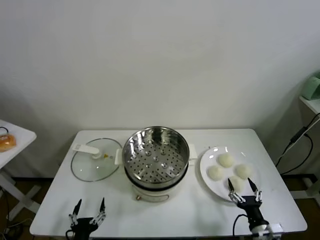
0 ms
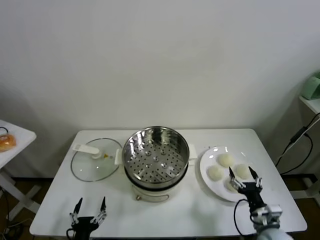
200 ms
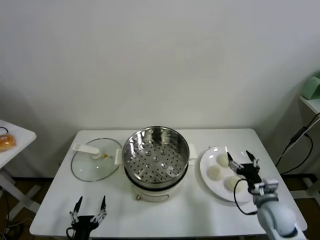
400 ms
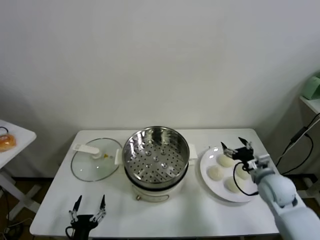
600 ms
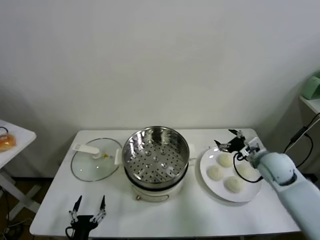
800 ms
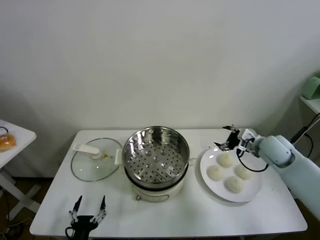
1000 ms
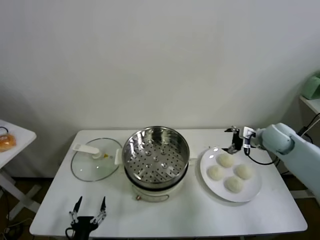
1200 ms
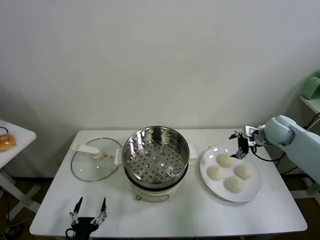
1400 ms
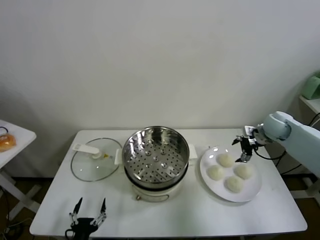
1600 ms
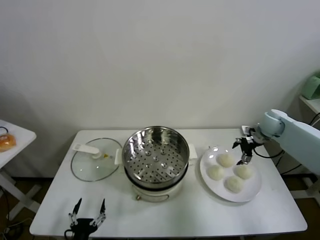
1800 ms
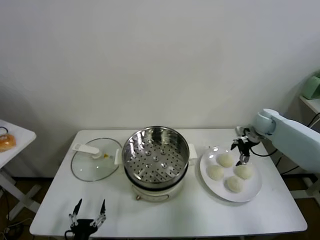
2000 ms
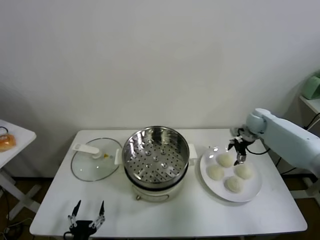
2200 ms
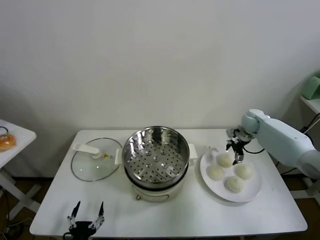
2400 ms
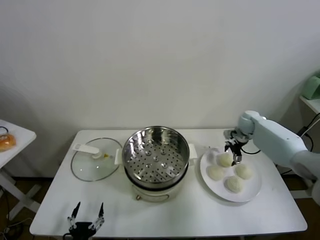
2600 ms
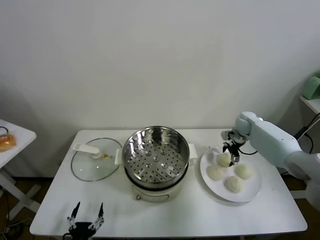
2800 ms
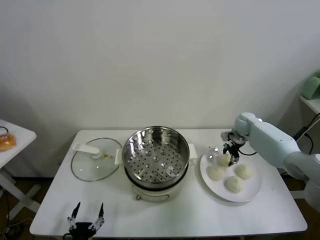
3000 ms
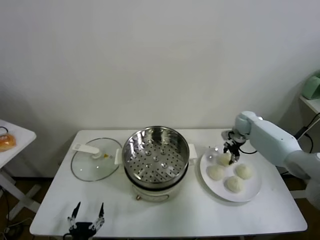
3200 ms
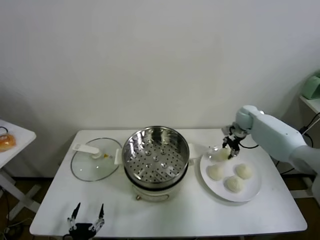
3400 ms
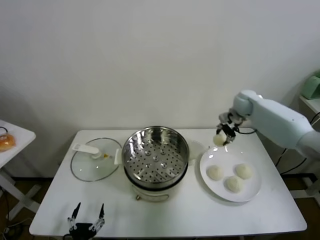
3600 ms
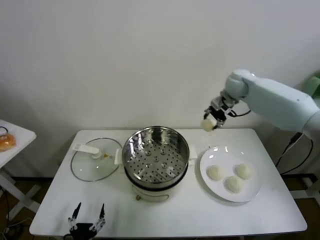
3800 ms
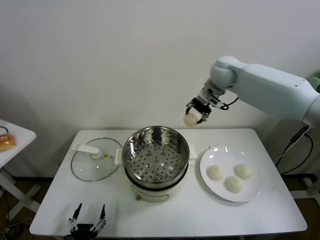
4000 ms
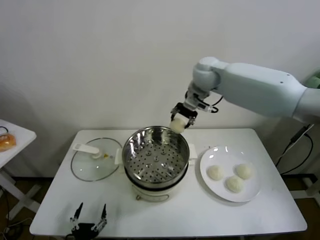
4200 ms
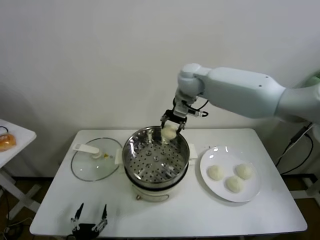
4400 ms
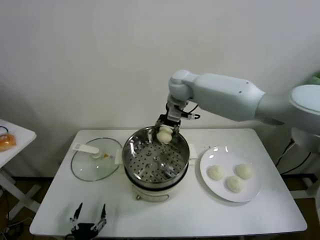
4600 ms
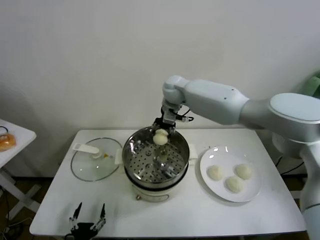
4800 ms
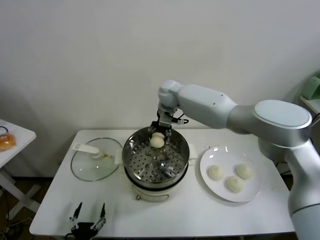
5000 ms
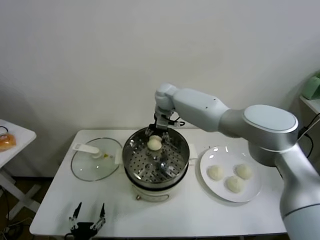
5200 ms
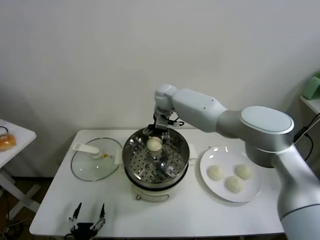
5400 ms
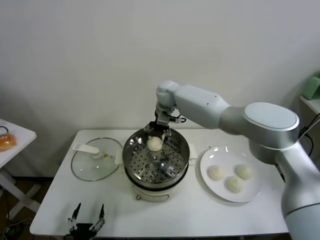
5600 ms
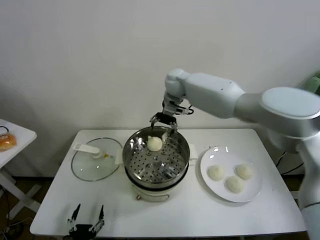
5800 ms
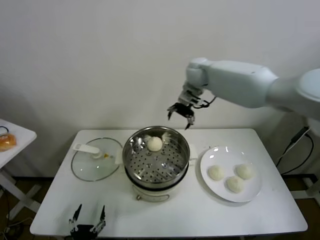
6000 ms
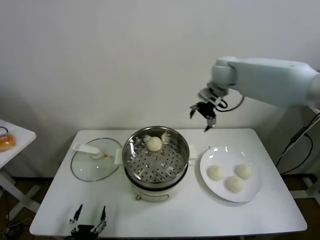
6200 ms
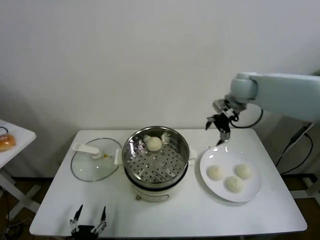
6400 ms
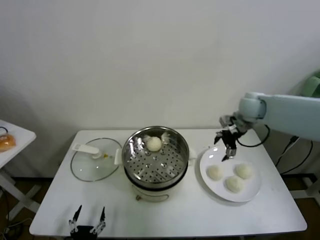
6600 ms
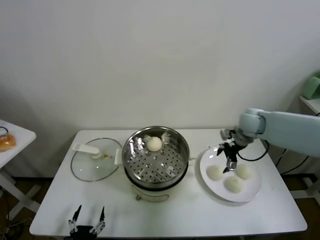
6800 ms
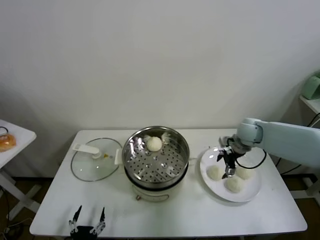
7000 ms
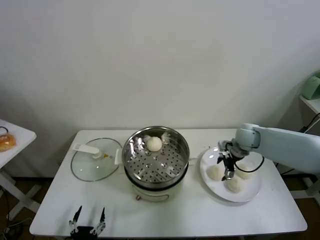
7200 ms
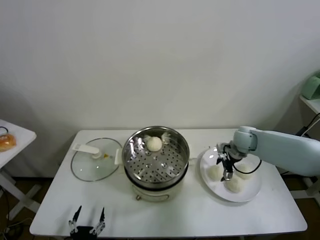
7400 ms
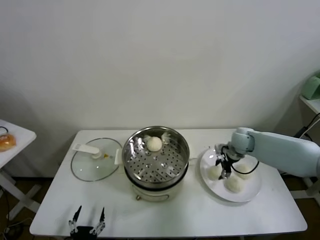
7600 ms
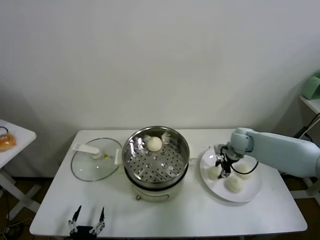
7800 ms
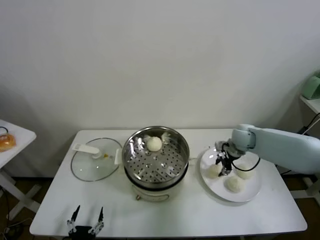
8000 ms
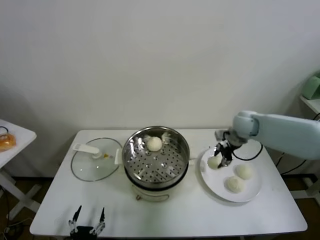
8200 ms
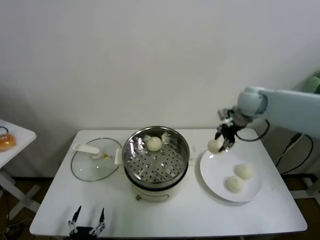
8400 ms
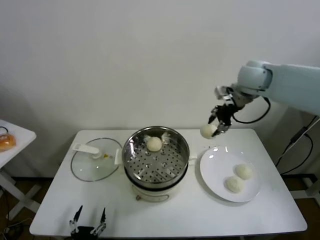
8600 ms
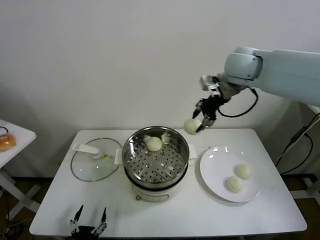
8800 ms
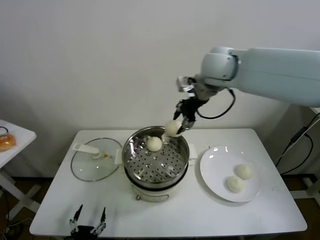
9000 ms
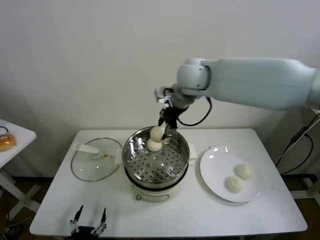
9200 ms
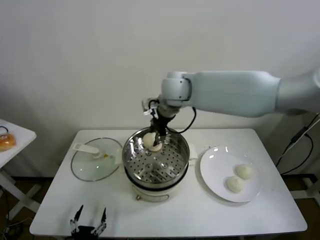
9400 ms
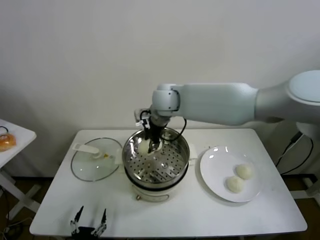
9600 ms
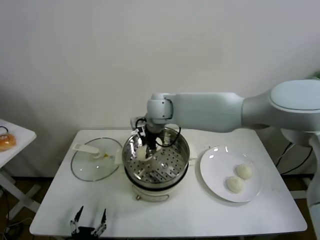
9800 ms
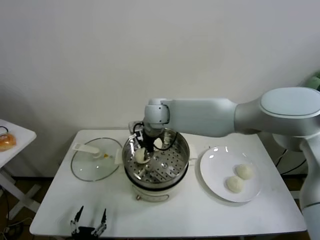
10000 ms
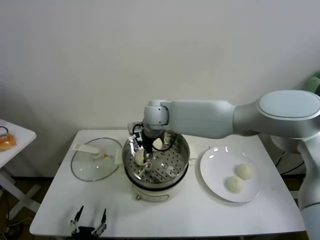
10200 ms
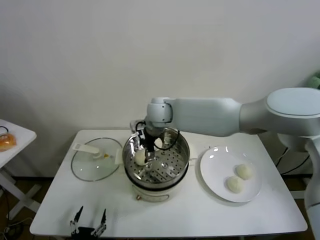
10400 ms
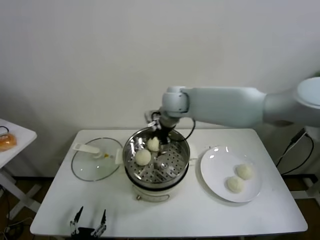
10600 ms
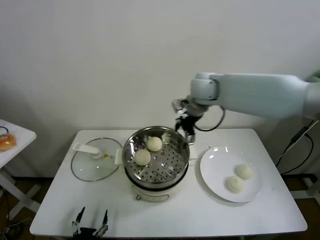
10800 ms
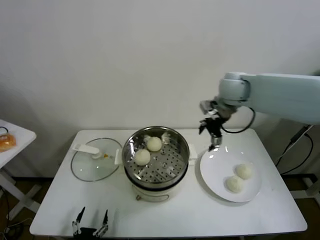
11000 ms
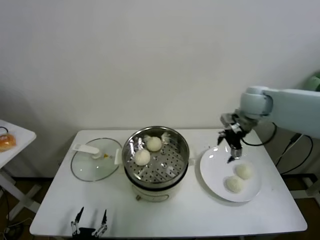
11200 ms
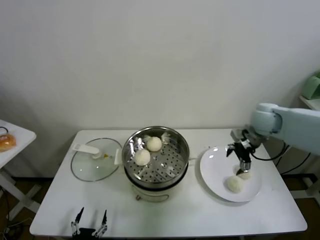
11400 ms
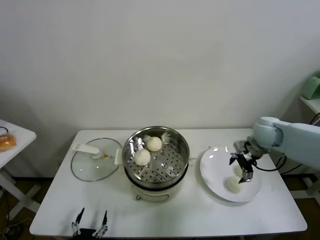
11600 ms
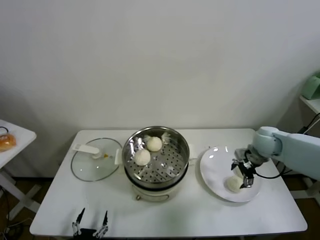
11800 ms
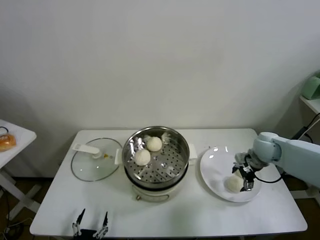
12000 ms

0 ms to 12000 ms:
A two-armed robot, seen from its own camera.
Task of the whole recording: take steamed baozi put them in steamer.
Step, 0 ms to 3000 ms: Grasp the baozi in the plate with right gripper.
Step, 3200 ms to 5400 ms: Place the baozi on the steamer with right gripper.
Step, 5800 ms to 7600 ms: Grasp the baozi in the plate with right gripper.
Step, 8000 ms to 10200 ms: Place the baozi on the steamer with right gripper.
1600 ms to 3000 ms: The right gripper shifts about 15 cm forward, downward and to the left, and closes.
3000 ms to 4400 ms: The right gripper goes roughly 35 cm to the left and upward.
4400 ms to 6000 ms: The right gripper moves roughly 10 cm to the left and comes back, and opens.
6000 ms to 7600 ms: The right gripper heads downward, to the right and backward, covering about 30 cm, and closes up.
7600 ms to 9000 ms: The right gripper shifts some 35 cm upward and to the left, and closes.
9000 ms to 10400 ms: The right gripper is displaced downward and to the left by about 25 cm, and opens.
10400 ms to 12000 ms: The right gripper shifts roughly 35 cm to the right.

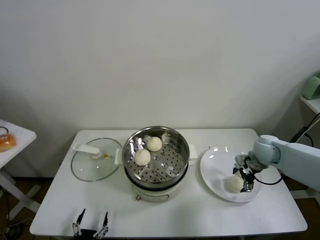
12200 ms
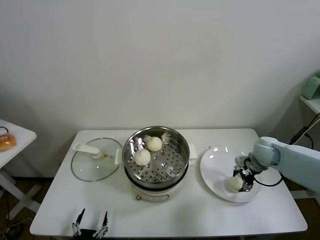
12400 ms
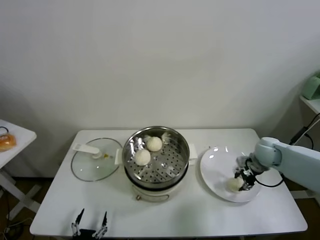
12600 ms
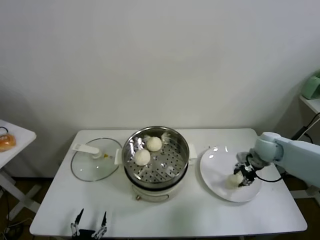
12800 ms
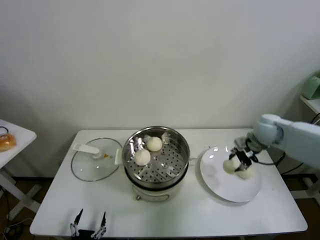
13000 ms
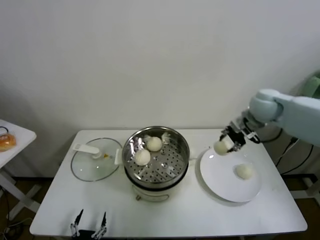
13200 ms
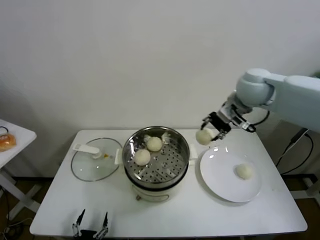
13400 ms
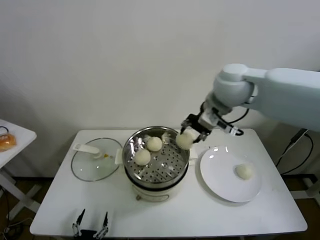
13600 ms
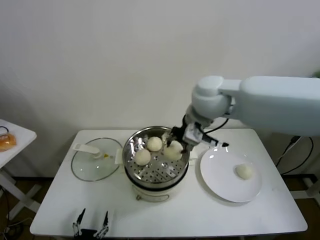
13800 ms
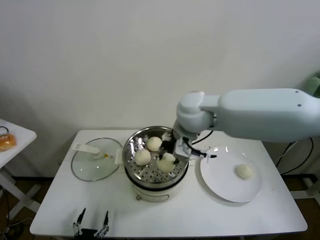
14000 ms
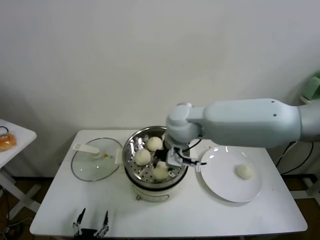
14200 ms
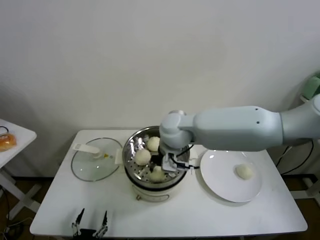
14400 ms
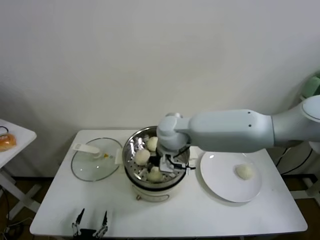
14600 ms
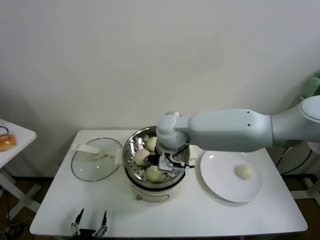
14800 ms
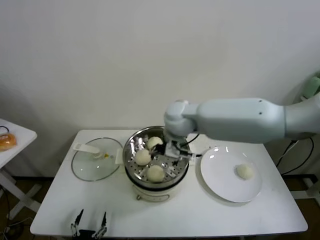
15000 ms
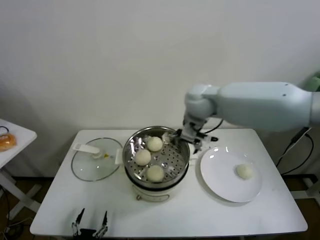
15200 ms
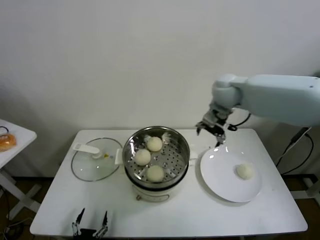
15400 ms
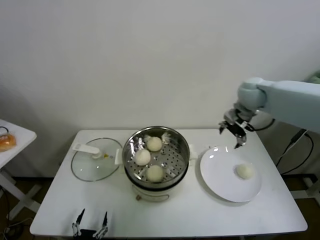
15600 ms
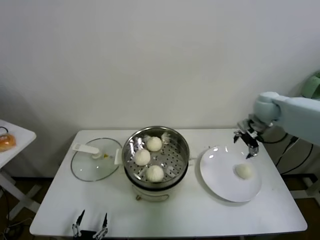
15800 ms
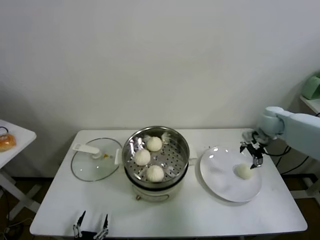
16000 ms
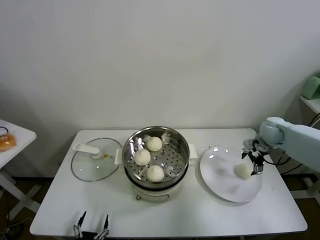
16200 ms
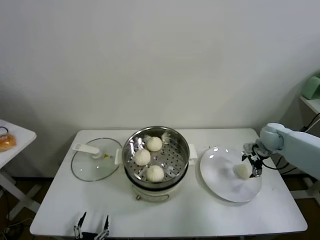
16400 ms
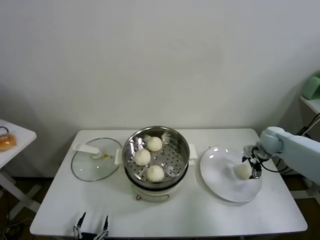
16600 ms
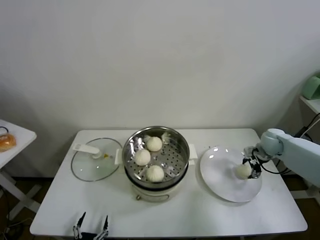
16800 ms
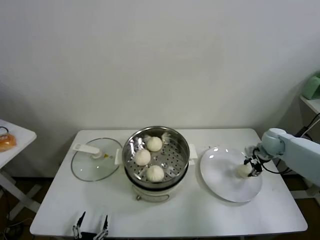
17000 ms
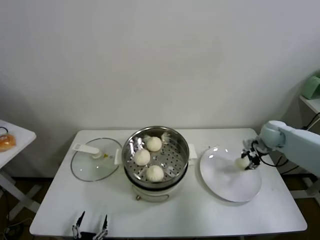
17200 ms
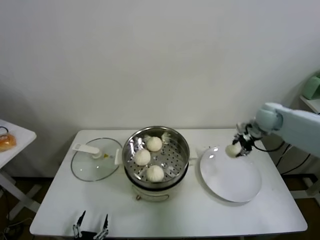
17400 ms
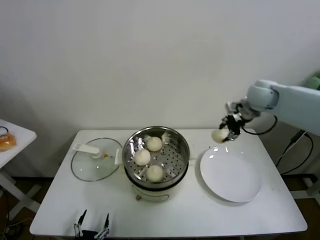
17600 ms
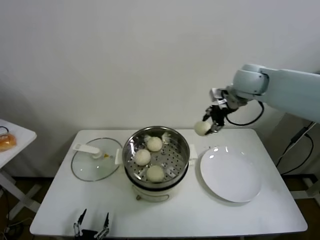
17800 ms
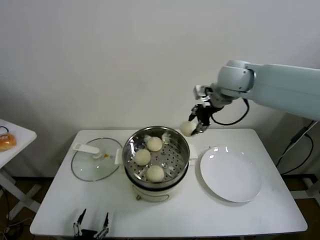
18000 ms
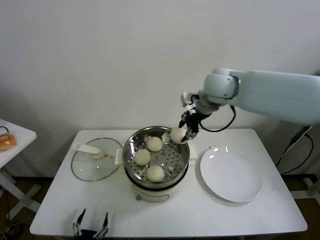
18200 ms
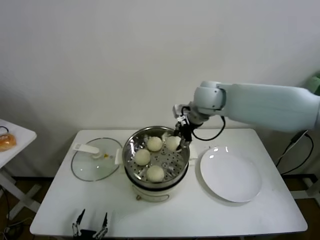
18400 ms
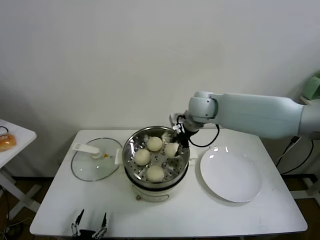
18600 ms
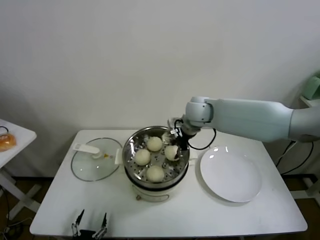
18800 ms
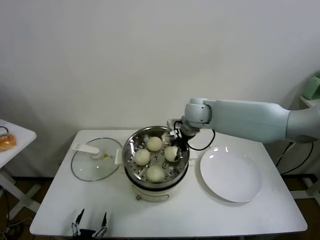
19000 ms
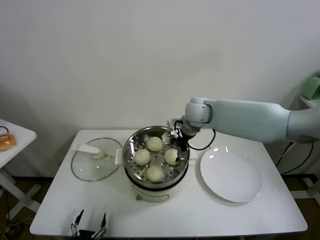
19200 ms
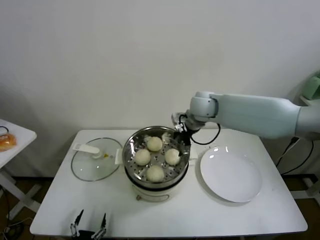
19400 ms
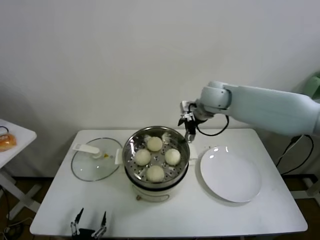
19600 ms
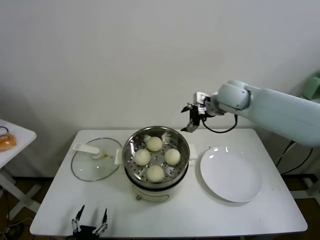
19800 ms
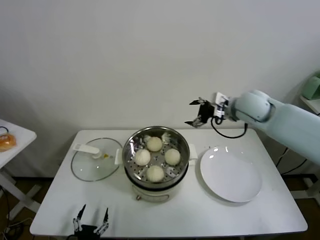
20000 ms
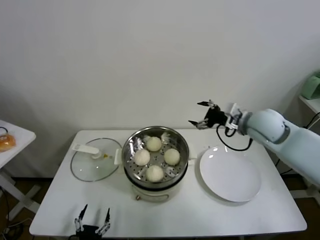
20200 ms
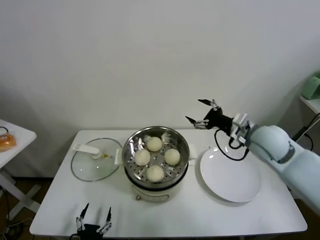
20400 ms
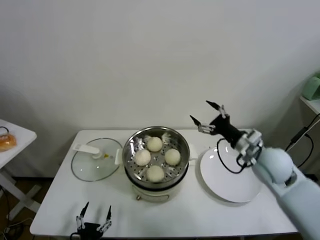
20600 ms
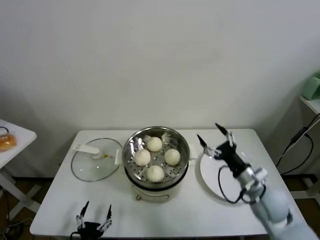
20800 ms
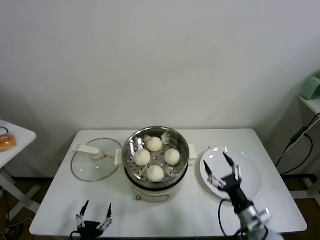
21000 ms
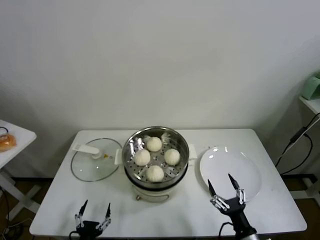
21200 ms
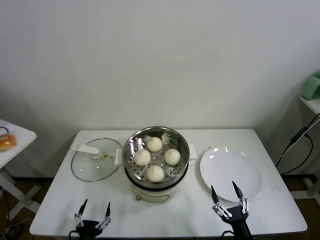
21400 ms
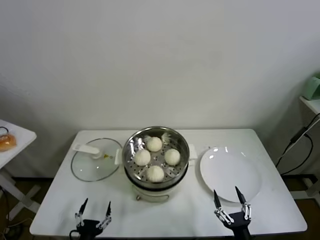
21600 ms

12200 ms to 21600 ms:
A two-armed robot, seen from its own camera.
Task of the whole recording: take steamed baozi put them in steamer.
Step, 12800 ms to 14800 ms: Place the baozi on the steamer with right gripper.
Step, 15000 ms to 16800 ms: Grasp the baozi in the plate with right gripper.
Step, 17000 ms to 19200 ms: Place the baozi on the steamer with right gripper.
12200 ms to 13800 ms: The right gripper shifts some 35 cm upward and to the left, and closes its fingers.
13800 ms to 15400 ms: The right gripper shifts about 10 cm forward, to the right and downward, and opens its fingers.
15400 ms to 17000 ms: The right gripper heads to the right and downward, covering approximately 35 cm, and closes.
17000 ms to 18400 ms: The right gripper moves to the left and upward, about 35 cm.
18400 ms to 20000 ms: The right gripper heads to the right, covering about 10 cm, and opens.
20000 ms to 21600 ms: The right gripper shifts about 50 cm backward and downward.
